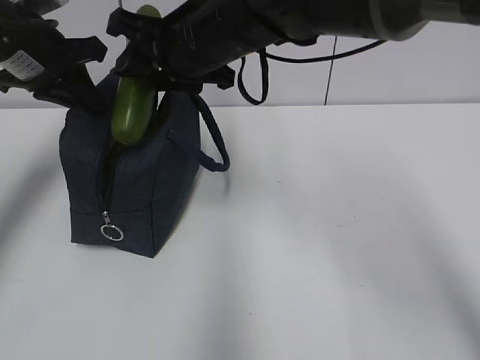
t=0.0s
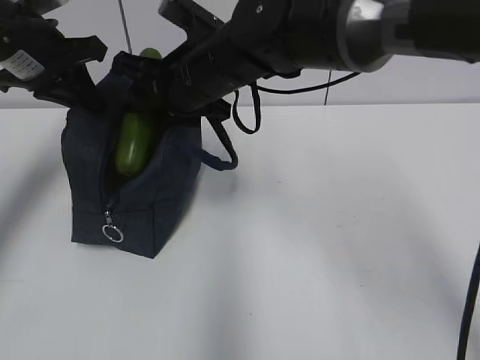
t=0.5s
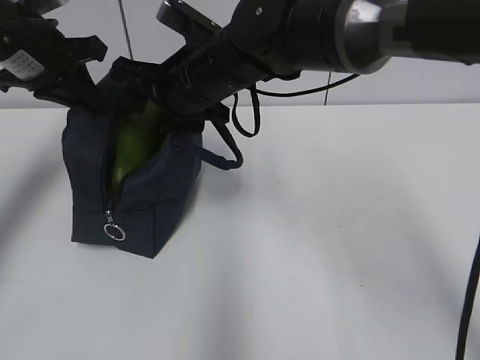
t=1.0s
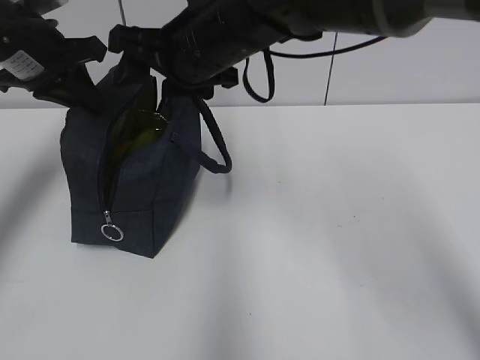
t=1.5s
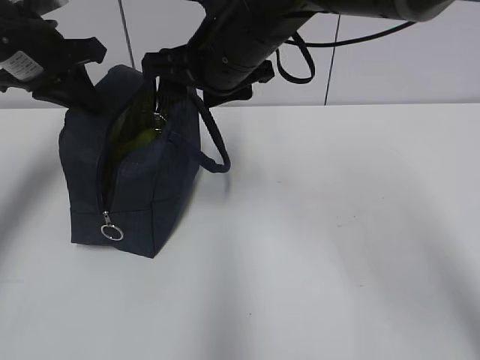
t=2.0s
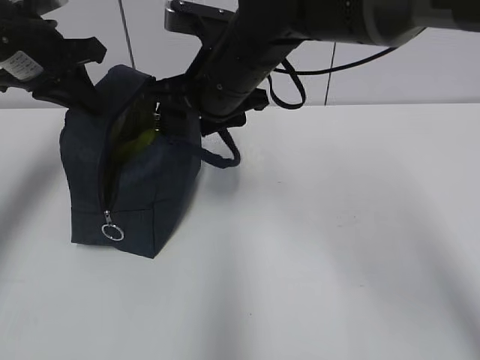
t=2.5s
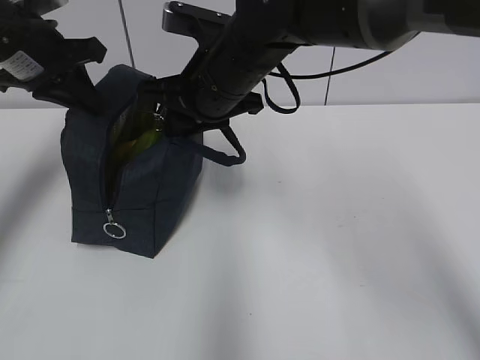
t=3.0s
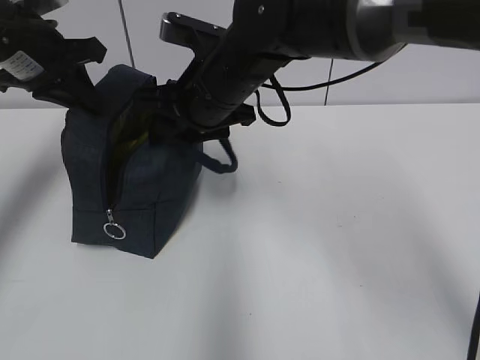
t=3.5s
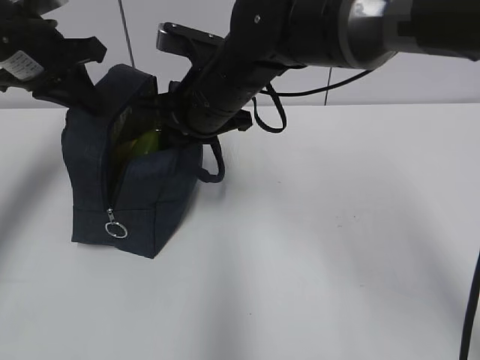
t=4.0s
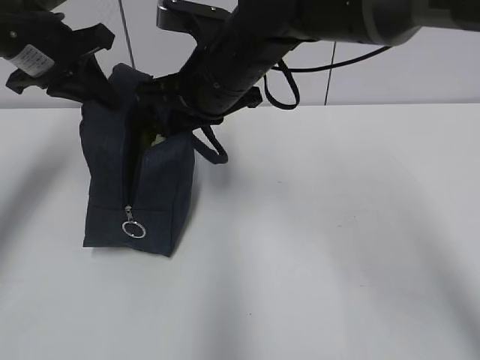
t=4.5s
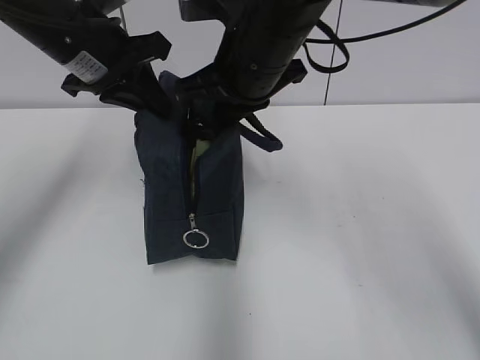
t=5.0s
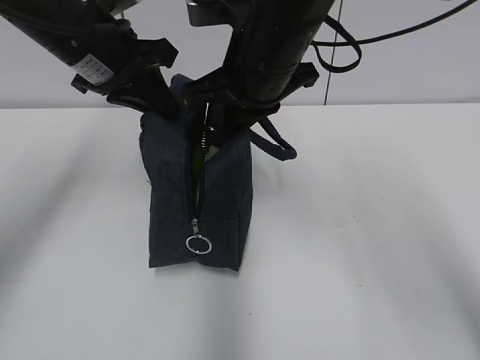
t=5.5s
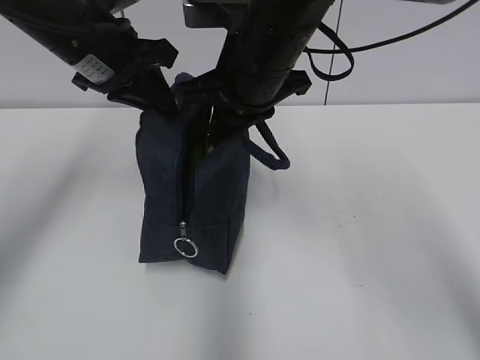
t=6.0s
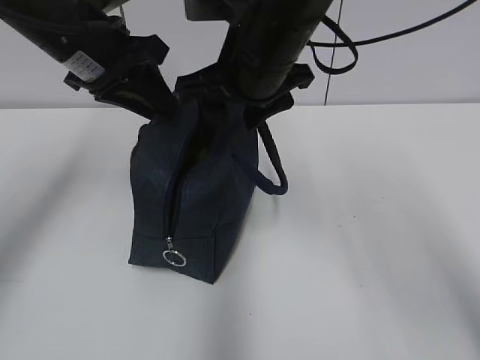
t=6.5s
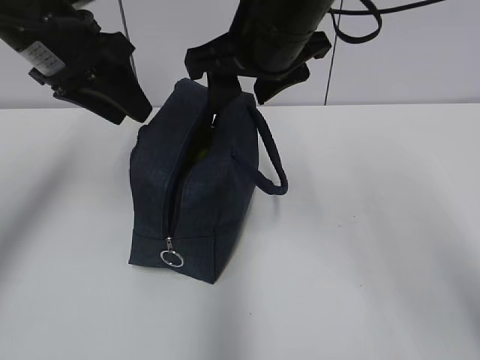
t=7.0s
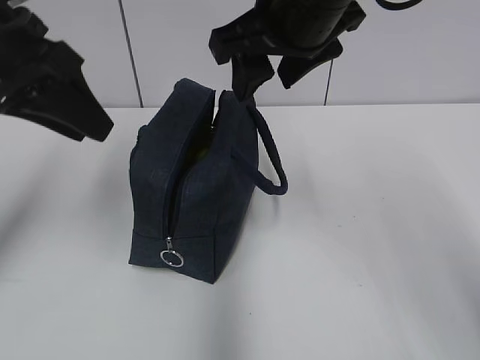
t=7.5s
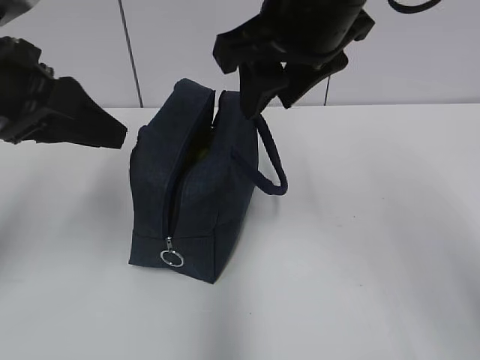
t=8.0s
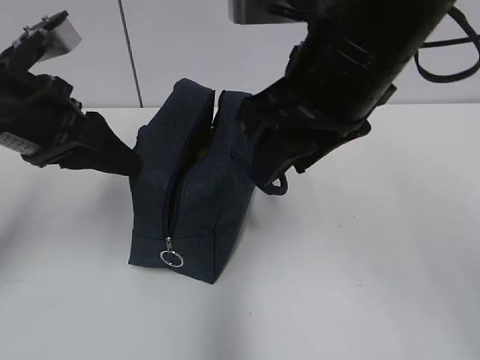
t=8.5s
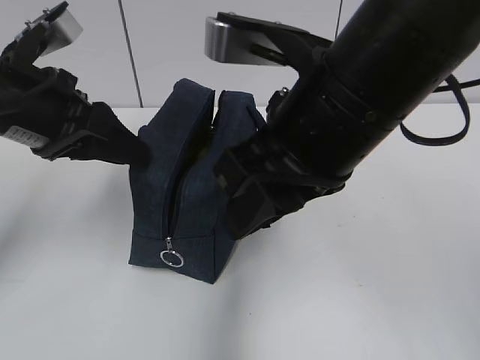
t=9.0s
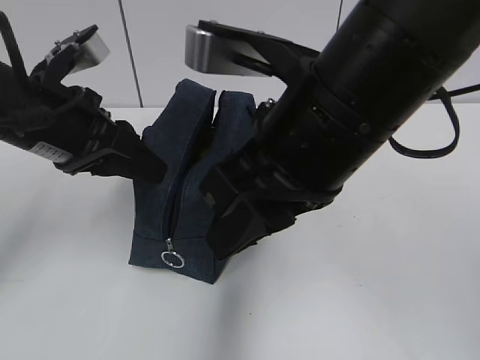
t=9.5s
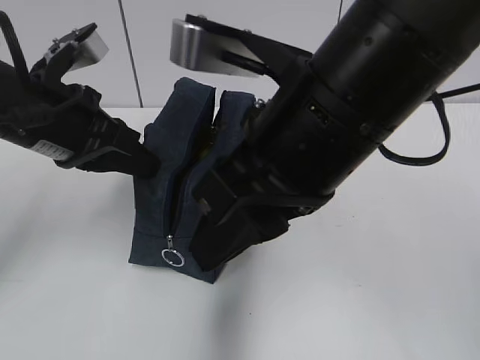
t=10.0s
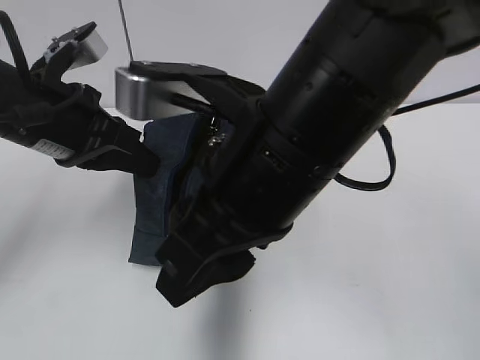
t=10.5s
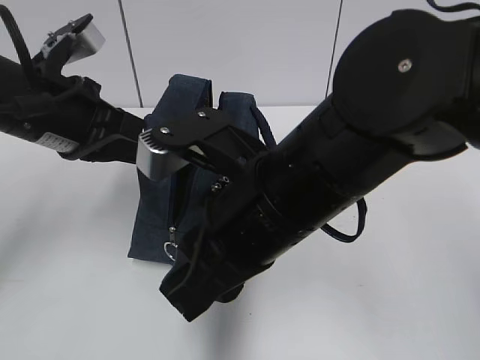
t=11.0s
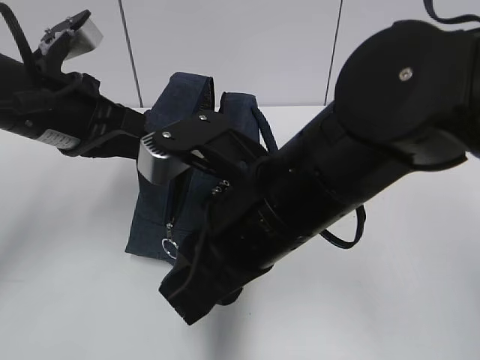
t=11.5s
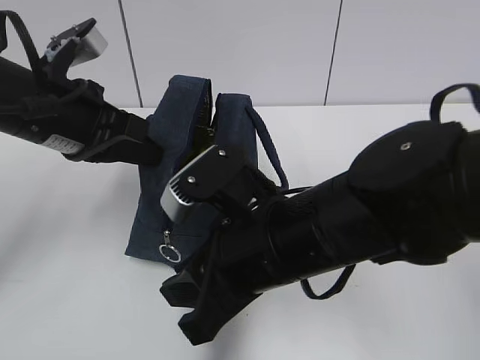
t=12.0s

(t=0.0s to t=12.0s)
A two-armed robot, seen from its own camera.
t=2.0s - t=4.0s: The right gripper travels downward by some 5 cm, and closes its fingers.
t=4.0s - t=6.0s: The right gripper shifts approximately 5 cm upward. Meanwhile the left gripper moves to the right, about 10 cm.
t=6.0s - t=8.0s: The left gripper goes approximately 10 cm backward, and opens its fingers; the right gripper shifts approximately 10 cm upward and backward, and opens its fingers.
t=8.0s - t=10.0s: The left gripper changes place by approximately 5 cm, and closes, while the right gripper travels backward by some 10 cm.
t=10.0s - t=12.0s: The right gripper shifts roughly 10 cm downward.

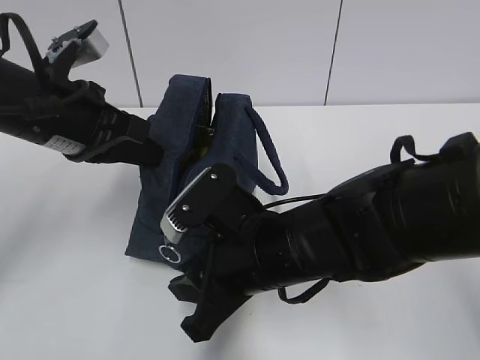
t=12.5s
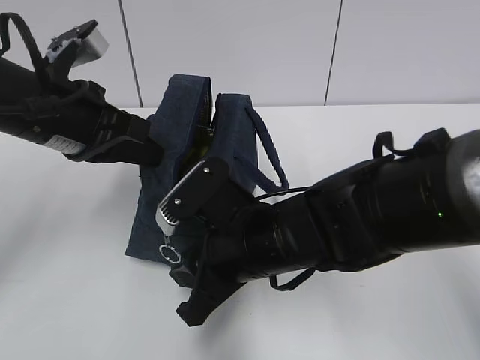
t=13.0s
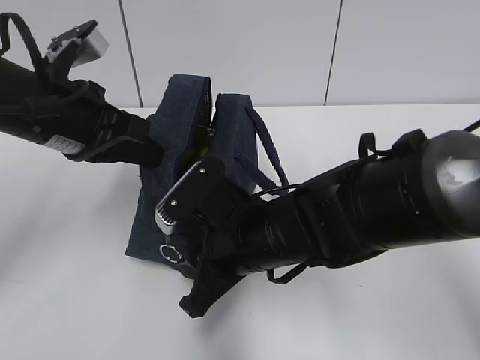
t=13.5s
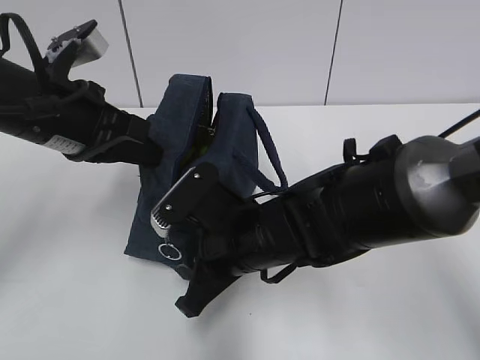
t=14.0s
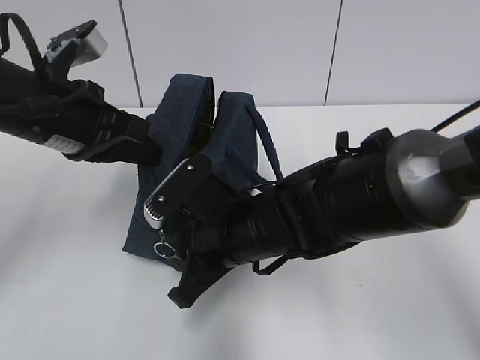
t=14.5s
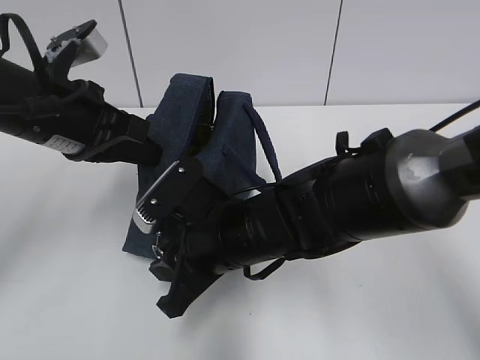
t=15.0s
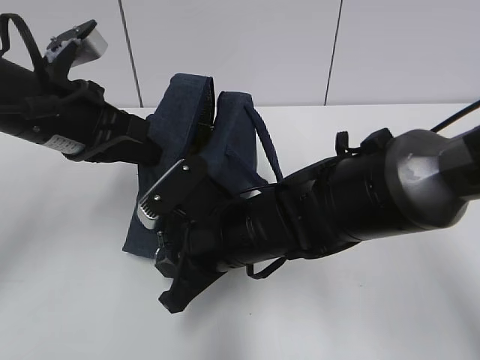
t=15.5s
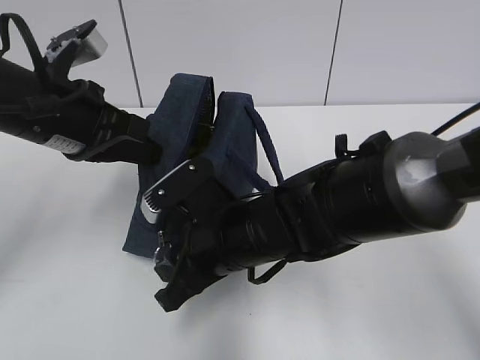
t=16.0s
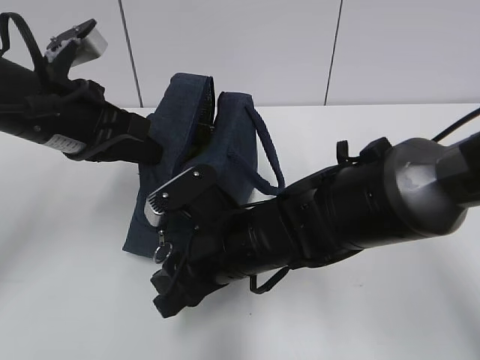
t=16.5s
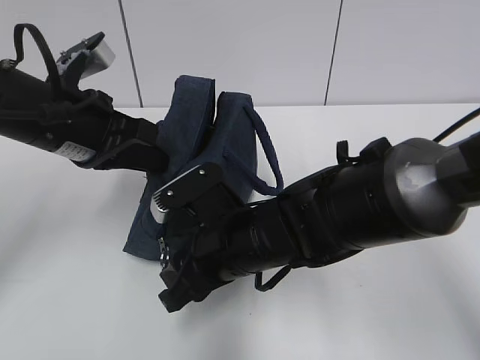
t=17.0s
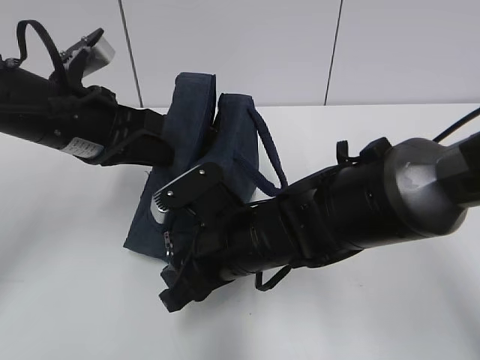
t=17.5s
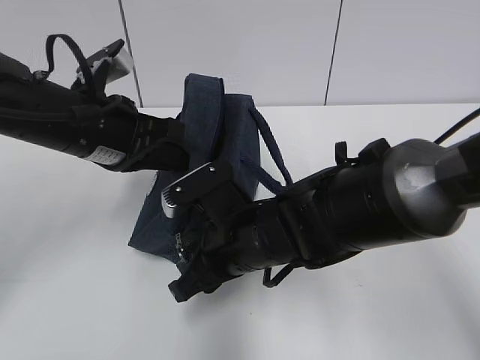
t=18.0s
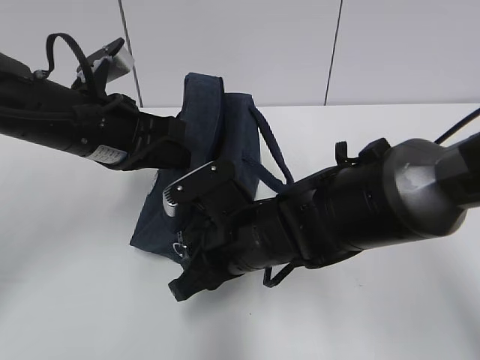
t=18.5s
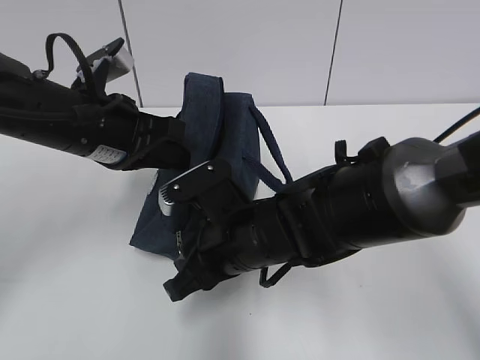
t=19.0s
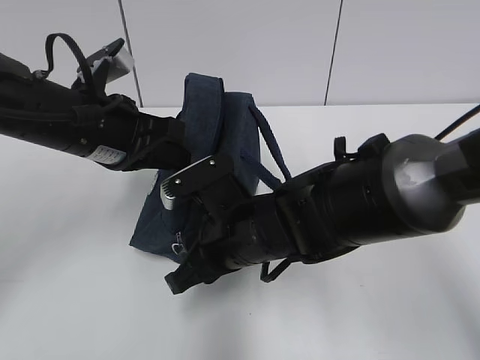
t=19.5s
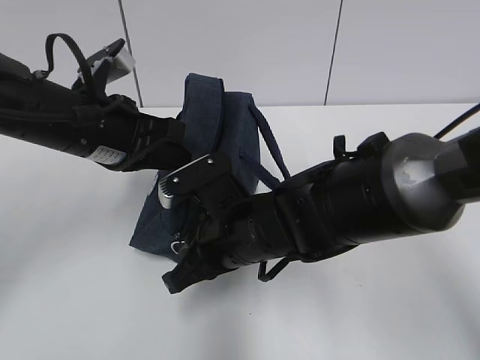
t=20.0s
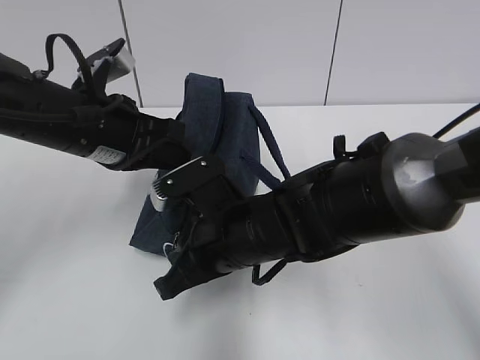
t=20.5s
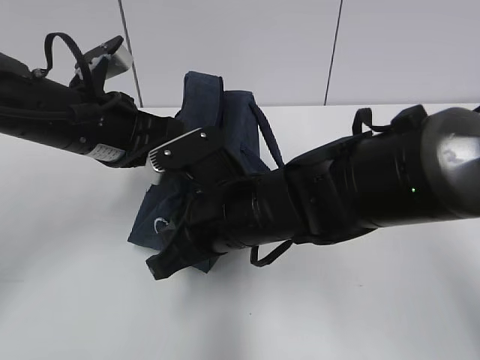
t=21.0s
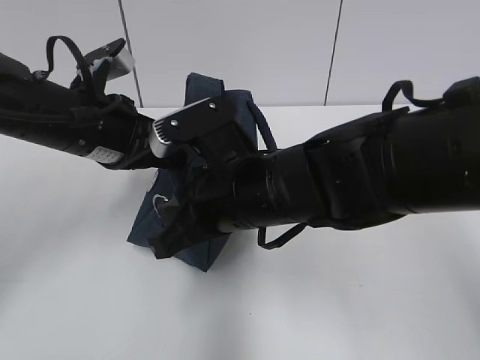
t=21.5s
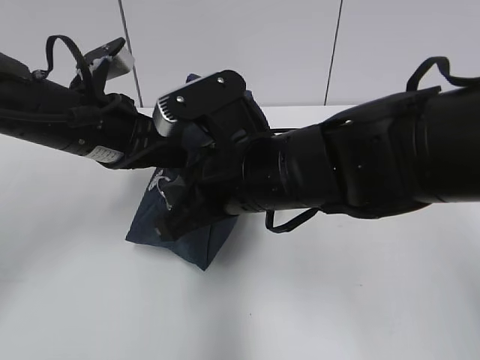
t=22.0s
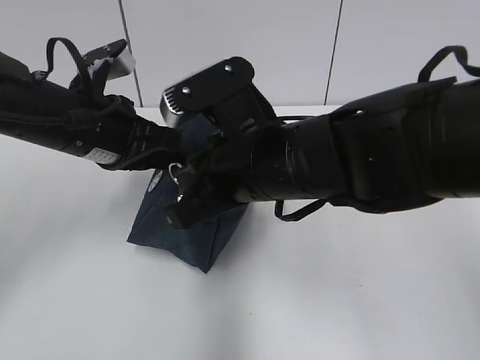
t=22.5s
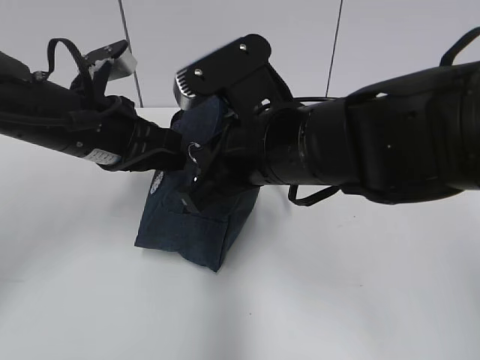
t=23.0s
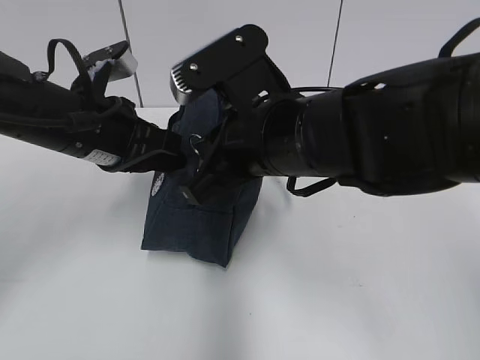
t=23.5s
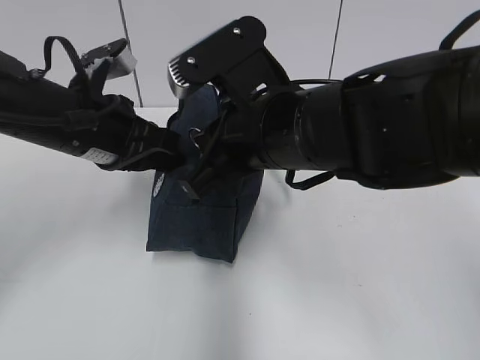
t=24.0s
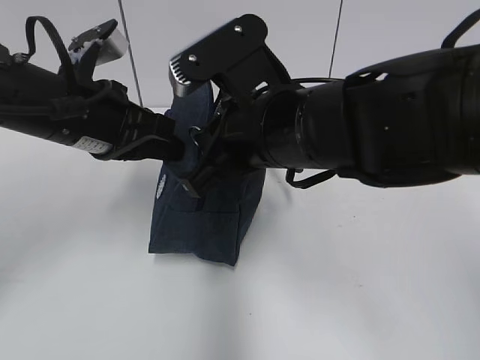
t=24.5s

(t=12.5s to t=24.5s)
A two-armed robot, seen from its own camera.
t=12.5s - t=18.5s: The grippers make only small movements.
t=18.5s - t=20.5s: The right gripper closes up.
t=20.5s - t=22.5s: The right gripper travels upward by some 10 cm.
t=22.5s - t=24.5s: The grippers move only a little.

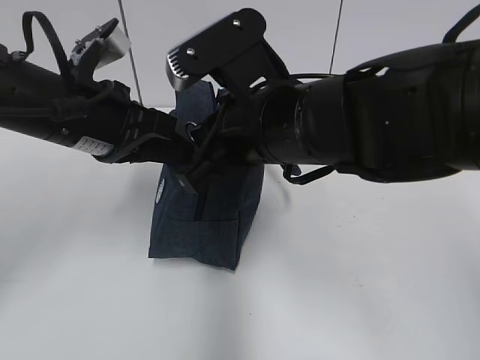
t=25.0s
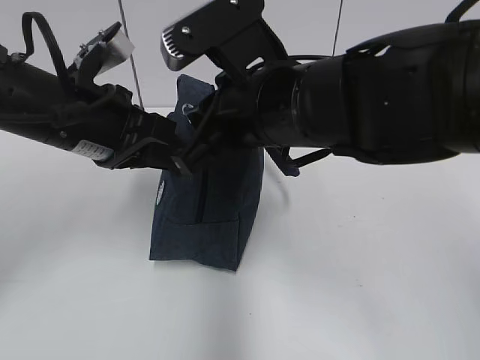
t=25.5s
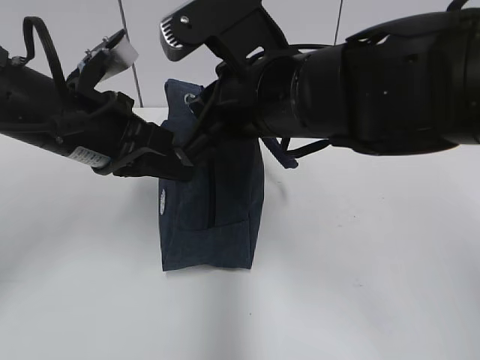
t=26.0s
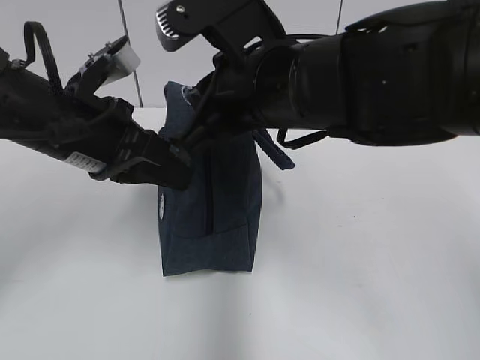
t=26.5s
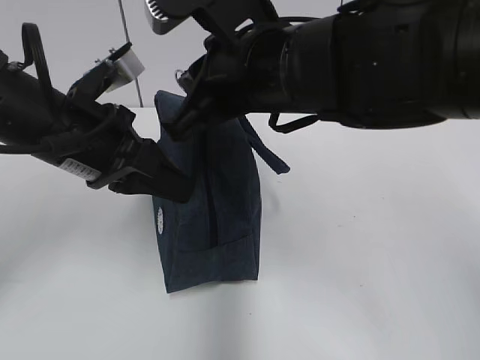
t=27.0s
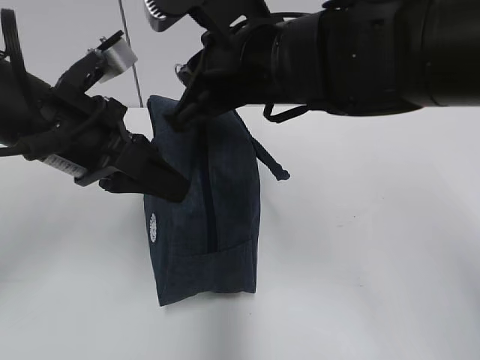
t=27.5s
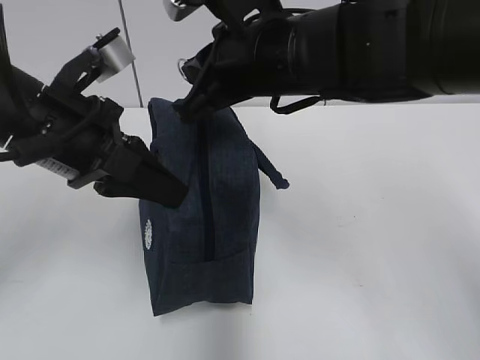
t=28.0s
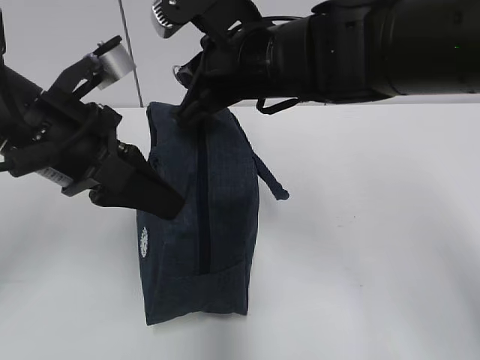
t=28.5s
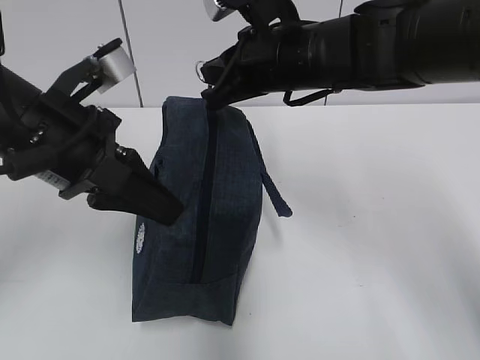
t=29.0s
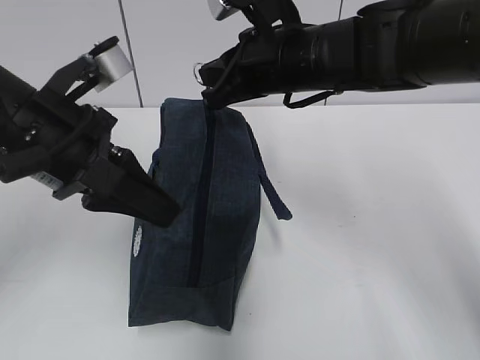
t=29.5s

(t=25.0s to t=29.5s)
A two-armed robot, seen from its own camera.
t=27.0s - t=29.5s: The right gripper is displaced forward by some 10 cm.
